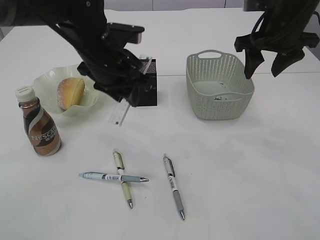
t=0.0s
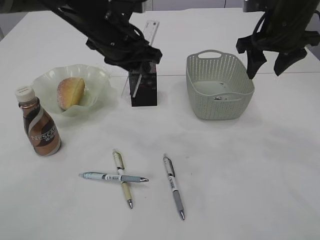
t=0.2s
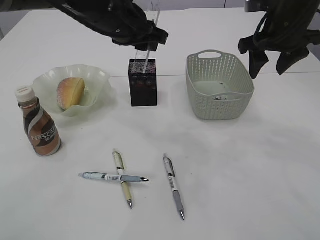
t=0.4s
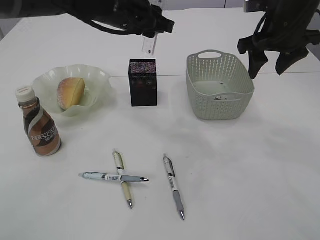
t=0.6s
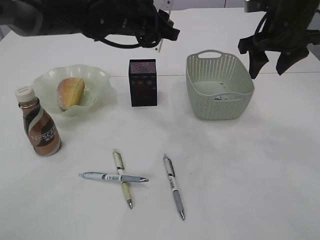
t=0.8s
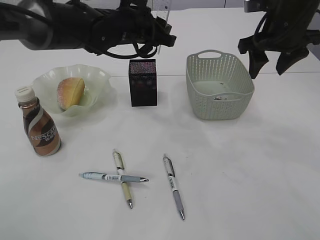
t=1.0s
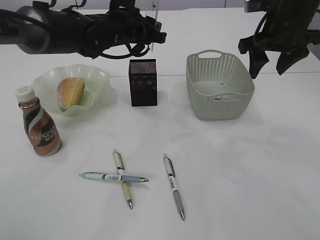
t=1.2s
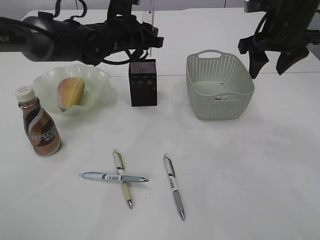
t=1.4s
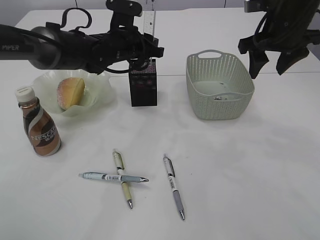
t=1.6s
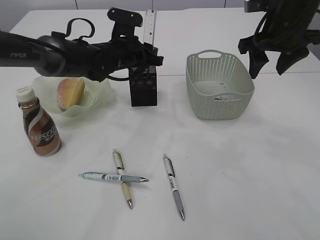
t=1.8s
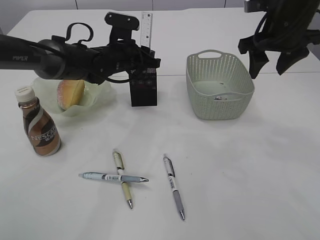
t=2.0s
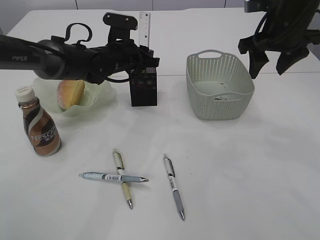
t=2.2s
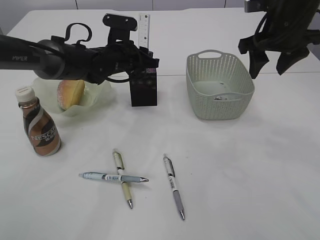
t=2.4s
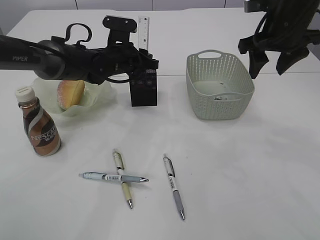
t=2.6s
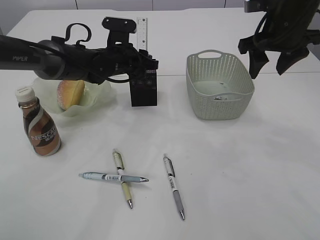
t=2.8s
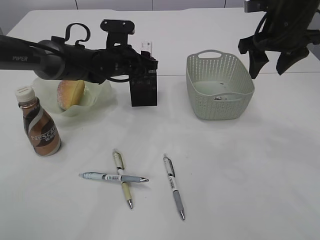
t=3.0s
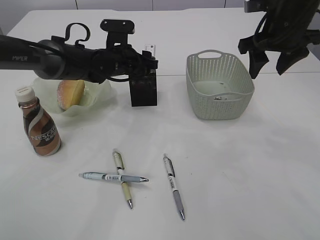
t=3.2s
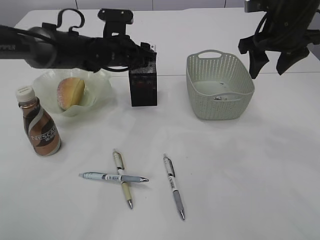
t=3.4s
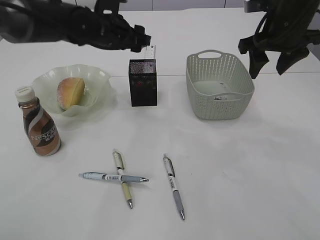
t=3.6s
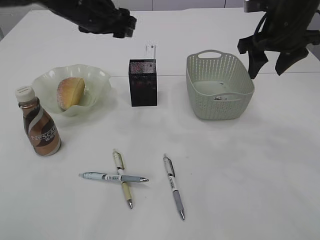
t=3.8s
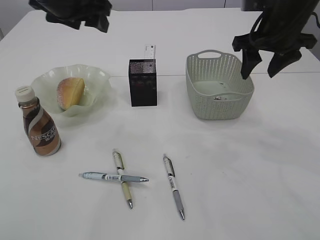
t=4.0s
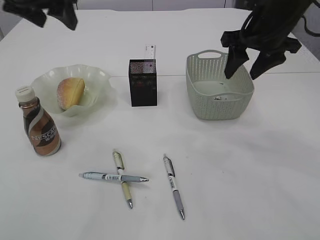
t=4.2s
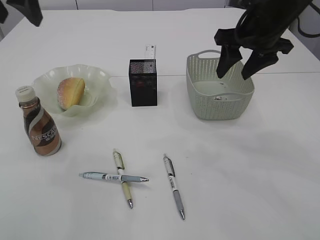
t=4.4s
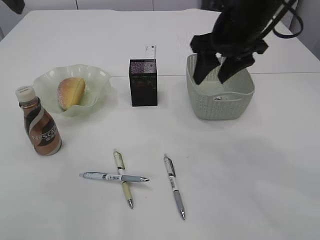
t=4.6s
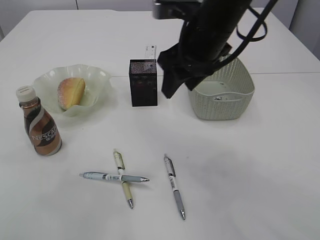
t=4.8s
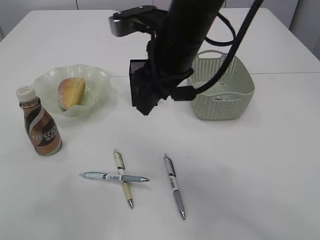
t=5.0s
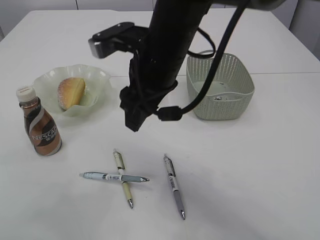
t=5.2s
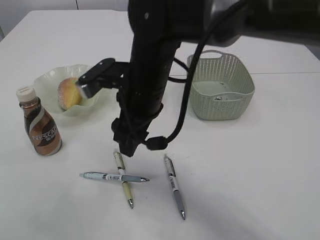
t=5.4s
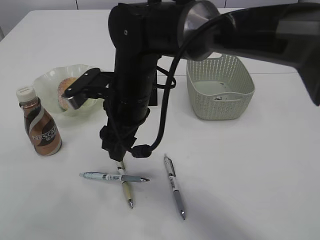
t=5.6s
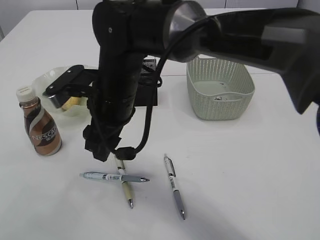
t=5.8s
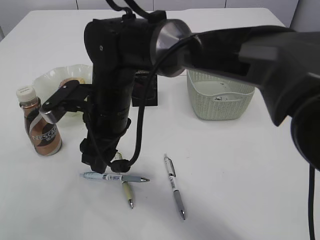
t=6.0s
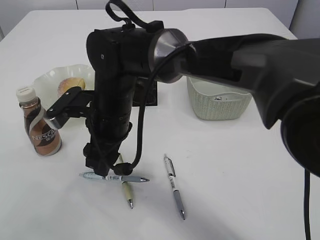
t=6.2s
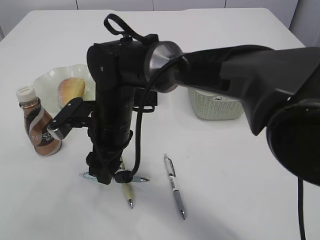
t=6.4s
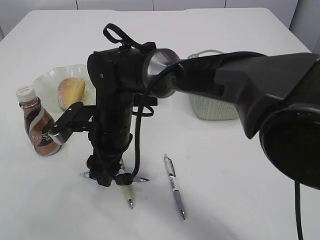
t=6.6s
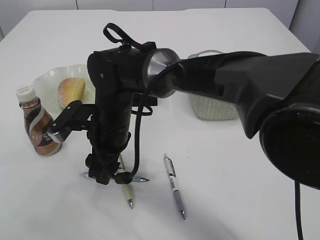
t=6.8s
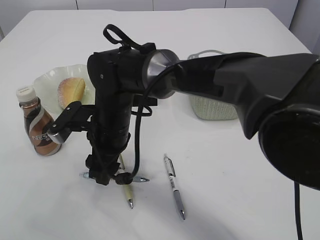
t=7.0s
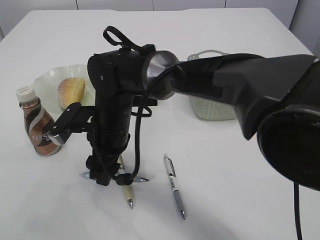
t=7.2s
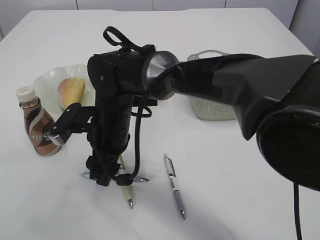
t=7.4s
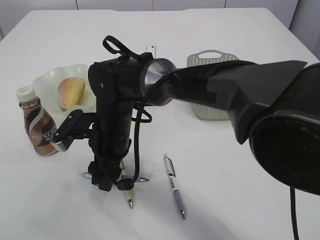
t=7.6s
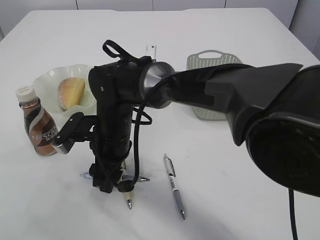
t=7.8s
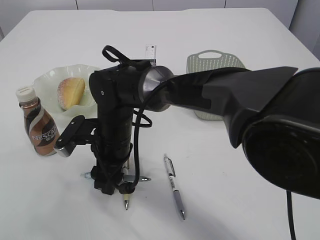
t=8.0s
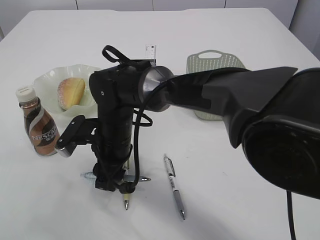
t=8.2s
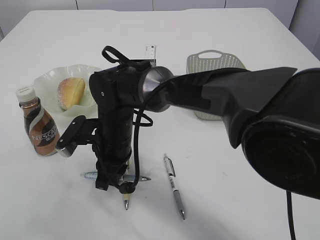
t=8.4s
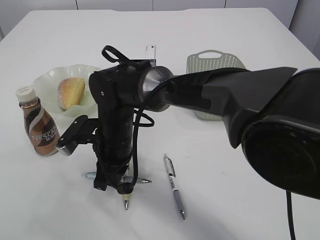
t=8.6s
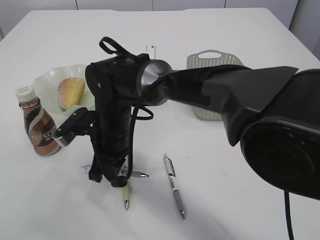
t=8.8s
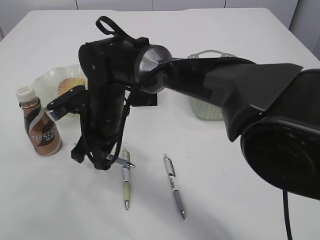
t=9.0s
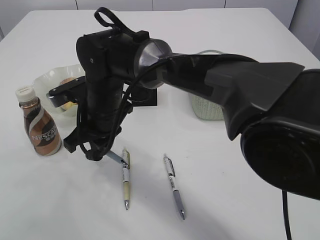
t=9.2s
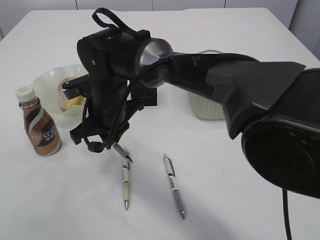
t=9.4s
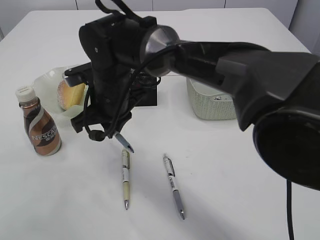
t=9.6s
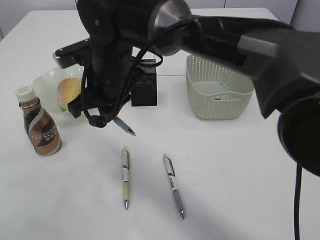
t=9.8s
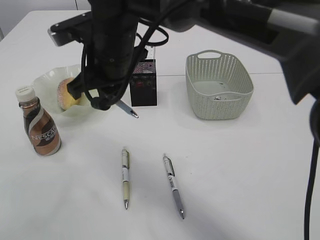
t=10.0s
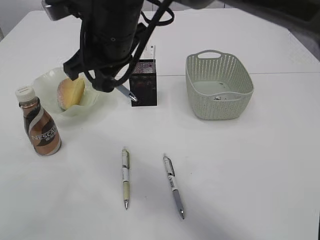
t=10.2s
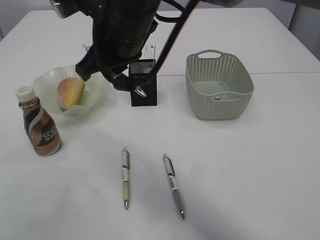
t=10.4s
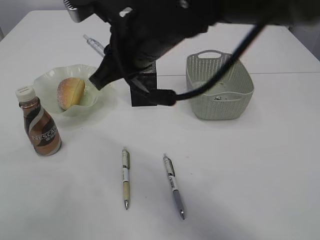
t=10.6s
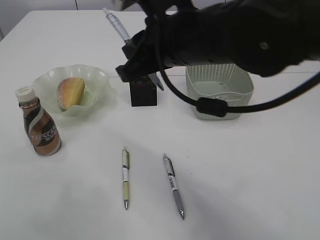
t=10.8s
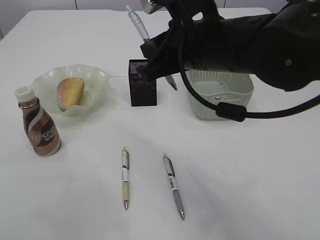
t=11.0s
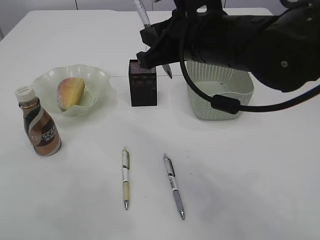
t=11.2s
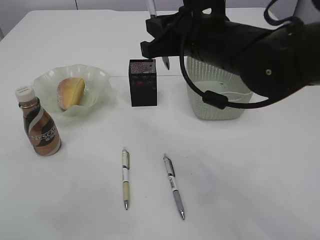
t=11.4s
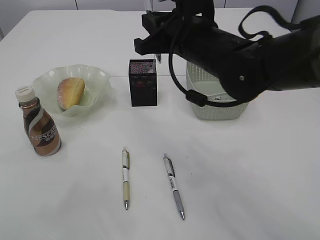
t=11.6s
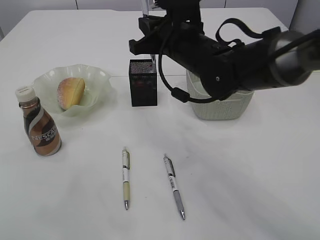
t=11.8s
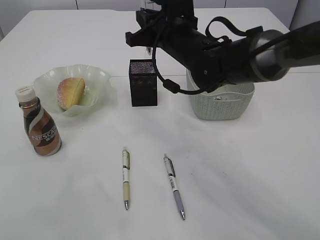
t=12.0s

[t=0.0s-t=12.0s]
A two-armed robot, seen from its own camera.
Step, t=0.0s to t=3.8s: Place the ruler into the pen holder.
Step, t=4.0s to t=9.4s: Pick up the pen with right arm.
t=0.0s to t=1.6s: The left gripper moves forward, some 10 cm.
t=1.6s to t=3.0s: The left gripper opens up.
t=3.0s to t=4.4s: The left gripper travels upward, backward and to the left by roughly 30 cm.
t=4.4s to t=6.0s: The left gripper shifts roughly 10 cm upward and backward. The right gripper heads to the left, covering about 25 cm.
t=6.0s to t=7.6s: The right gripper goes approximately 5 cm downward.
t=7.6s to t=9.0s: The right gripper closes.
t=9.0s to t=10.4s: The right gripper moves upward, about 15 cm.
t=10.4s to t=12.0s: The right gripper is displaced to the right, forward and downward by about 15 cm.

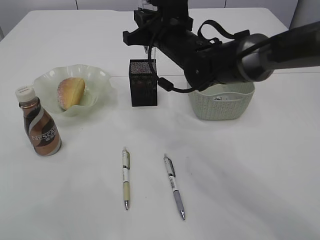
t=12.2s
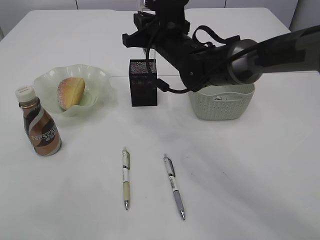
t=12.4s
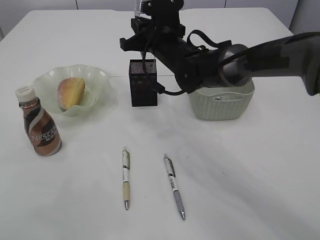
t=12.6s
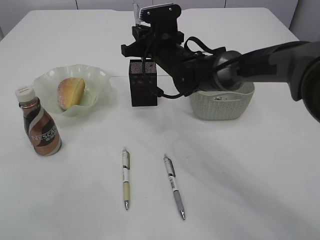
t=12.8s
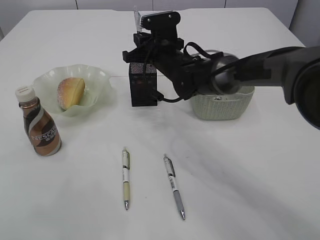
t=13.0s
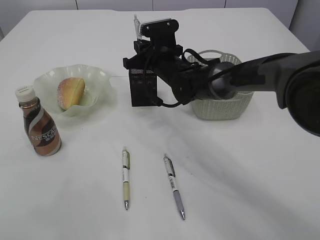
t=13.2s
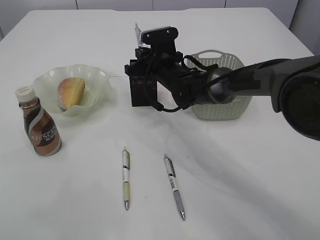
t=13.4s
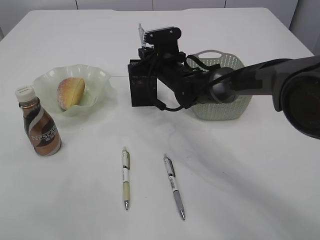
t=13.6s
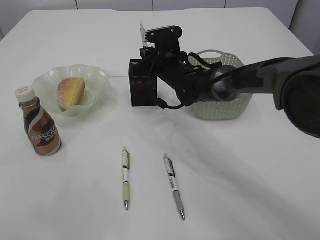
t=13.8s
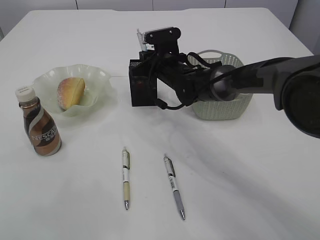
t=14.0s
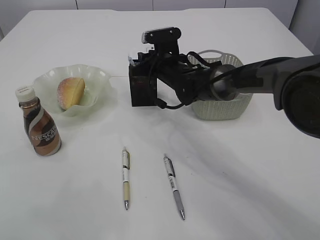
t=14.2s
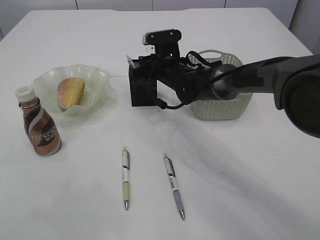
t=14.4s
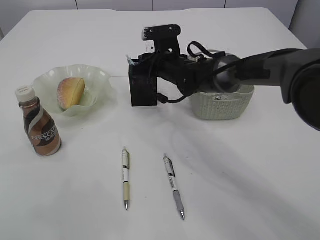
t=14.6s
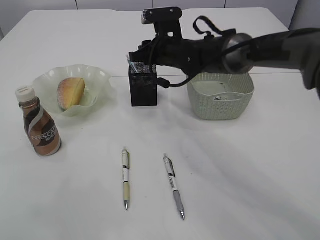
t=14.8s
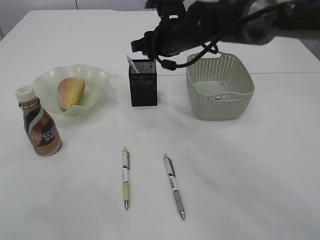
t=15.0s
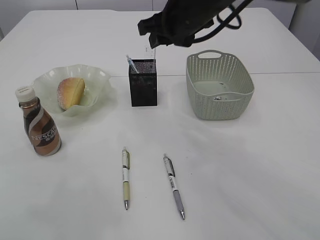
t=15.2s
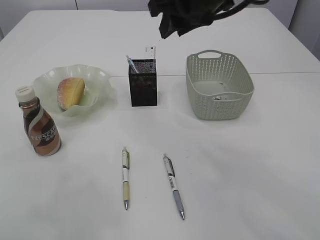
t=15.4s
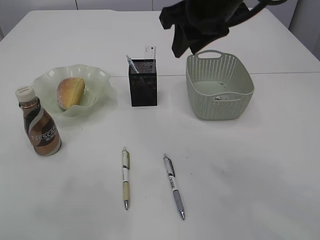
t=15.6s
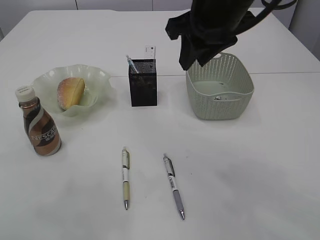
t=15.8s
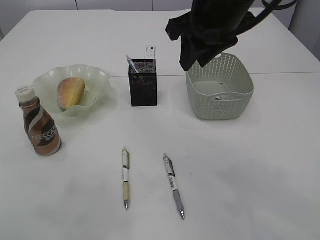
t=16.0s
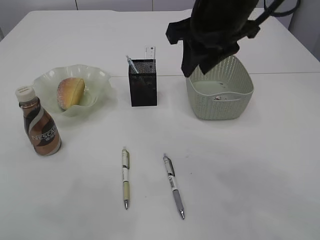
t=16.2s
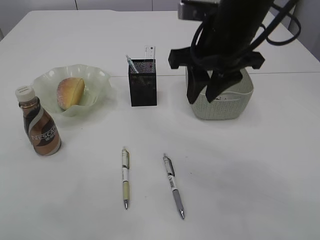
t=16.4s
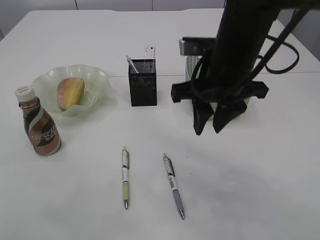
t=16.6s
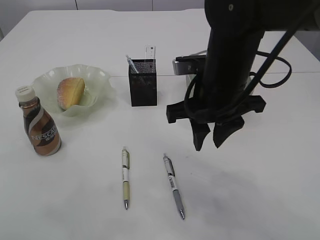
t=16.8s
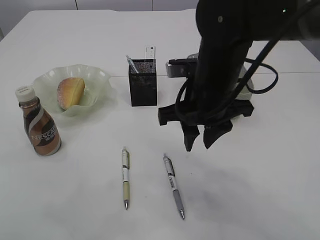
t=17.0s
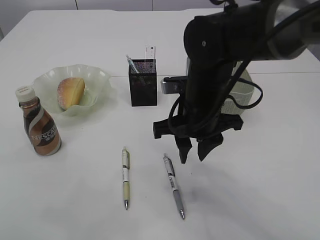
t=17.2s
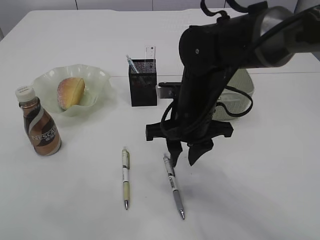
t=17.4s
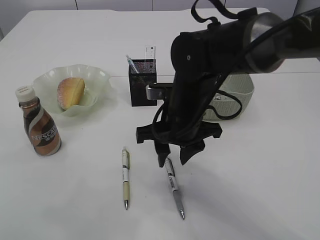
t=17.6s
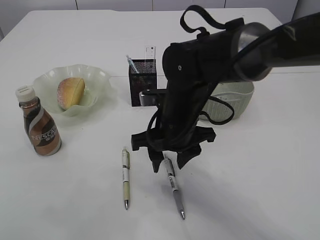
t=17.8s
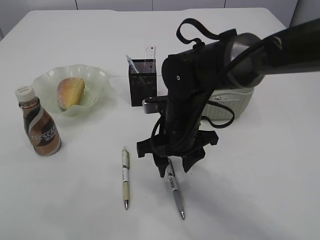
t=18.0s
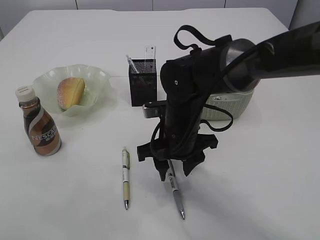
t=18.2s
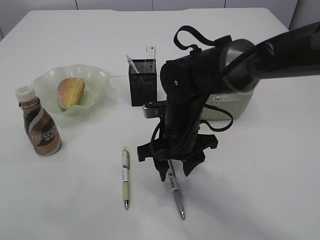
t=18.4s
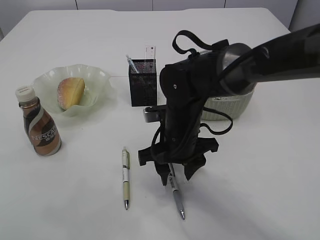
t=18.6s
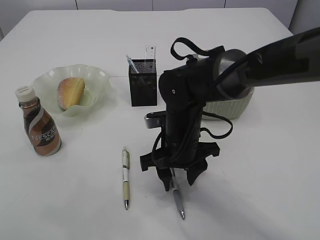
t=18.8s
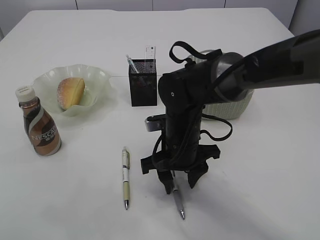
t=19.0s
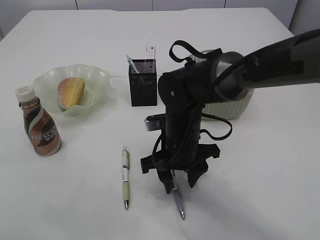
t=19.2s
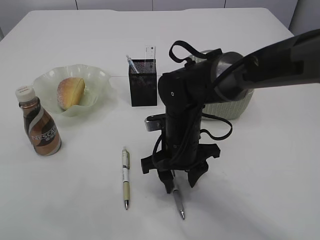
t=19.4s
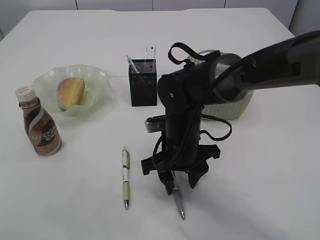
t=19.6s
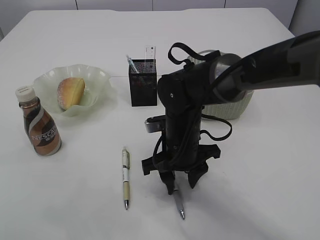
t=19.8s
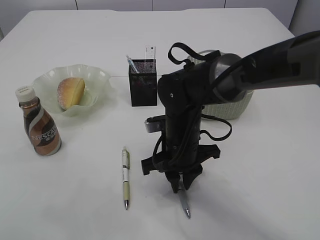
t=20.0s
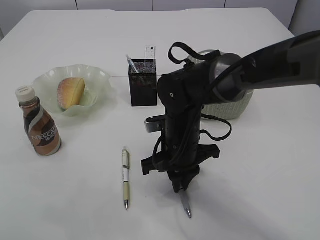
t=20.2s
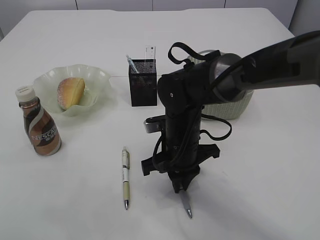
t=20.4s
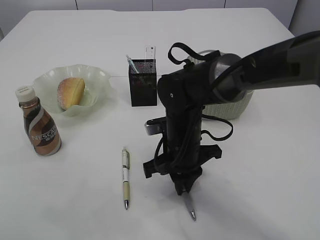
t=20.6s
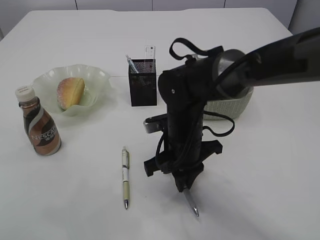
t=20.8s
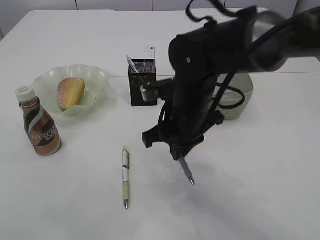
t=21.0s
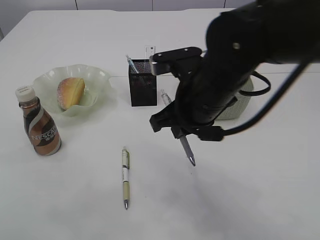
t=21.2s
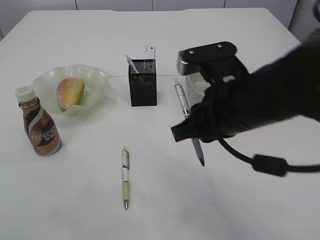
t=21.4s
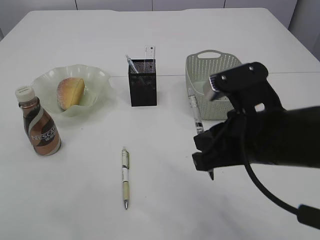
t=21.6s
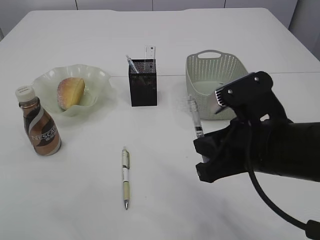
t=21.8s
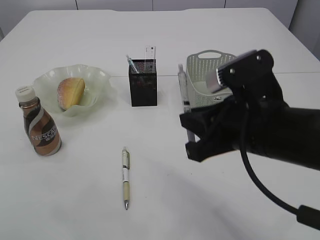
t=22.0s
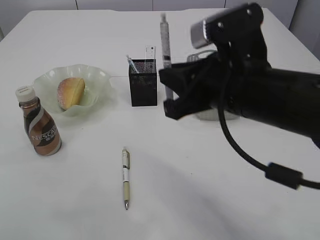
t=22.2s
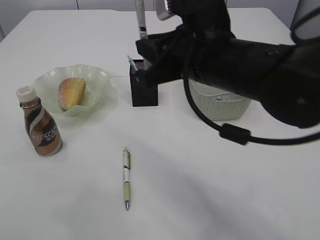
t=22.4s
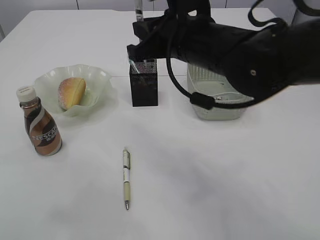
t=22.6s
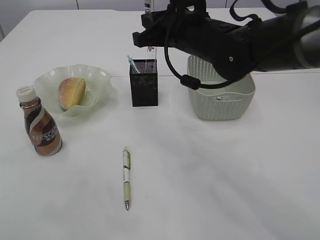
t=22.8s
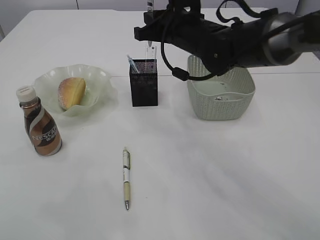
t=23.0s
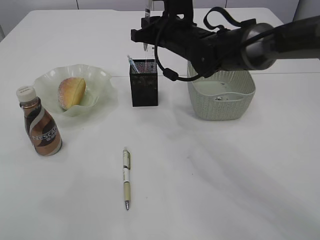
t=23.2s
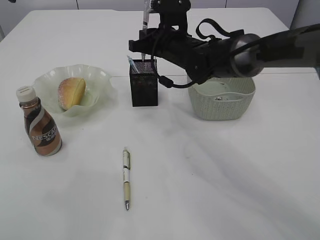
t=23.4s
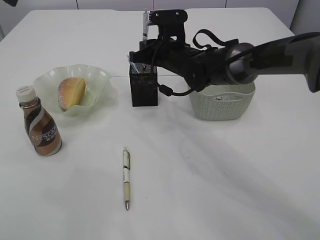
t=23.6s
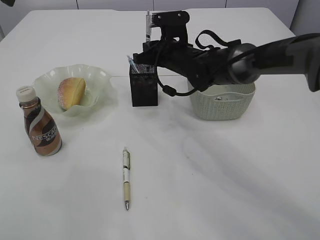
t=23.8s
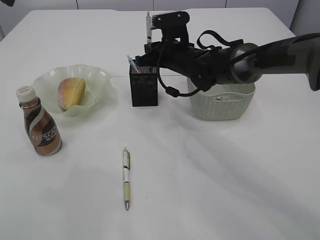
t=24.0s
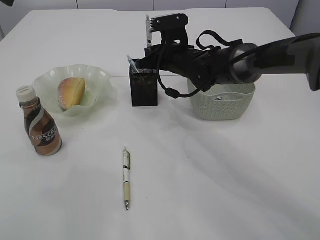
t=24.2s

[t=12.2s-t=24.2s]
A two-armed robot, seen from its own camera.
Step, t=12.2s to t=15.0s: Place the pen into the pen holder.
Step, t=15.2s to t=21.0s: Pick up the pen with right arm.
t=12.2s to t=13.8s: The right gripper goes about 10 cm downward and forward.
t=13.8s to t=15.2s: The right gripper moves upward and backward, about 15 cm, and opens its fingers.
t=15.2s to t=16.6s: The right gripper goes approximately 10 cm backward.
t=16.6s to t=18.2s: The right gripper is displaced downward and to the left by some 15 cm.
t=18.2s to t=19.8s: There are only small adjustments of the grippers.
t=19.8s to t=21.2s: The right gripper travels upward by some 10 cm, and closes its fingers.
t=21.2s to t=22.6s: The right gripper goes backward and returns, some 10 cm each way.
t=22.6s to t=24.2s: The right gripper heads forward and downward, covering roughly 20 cm.
